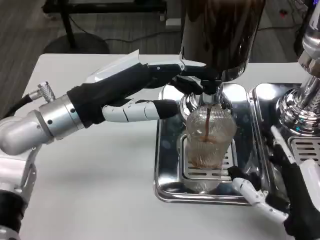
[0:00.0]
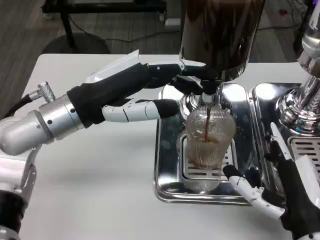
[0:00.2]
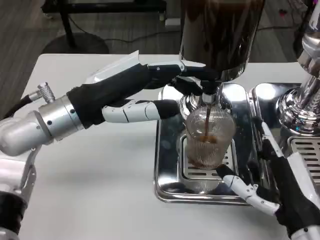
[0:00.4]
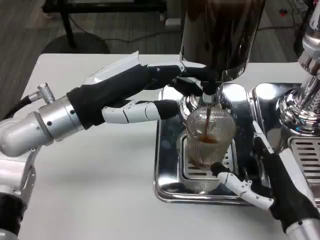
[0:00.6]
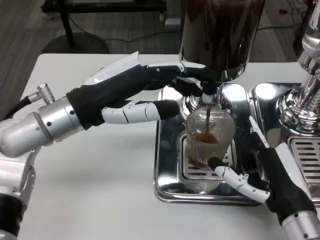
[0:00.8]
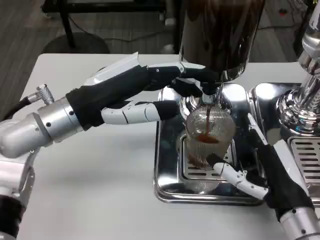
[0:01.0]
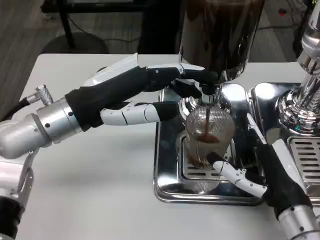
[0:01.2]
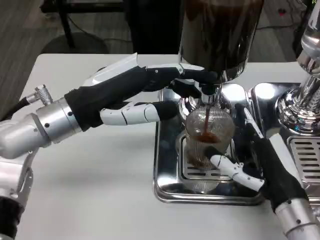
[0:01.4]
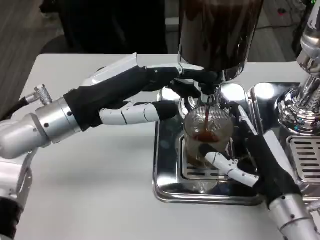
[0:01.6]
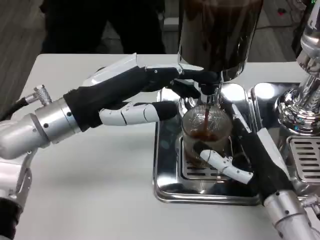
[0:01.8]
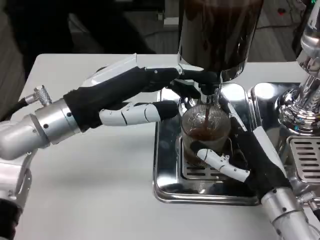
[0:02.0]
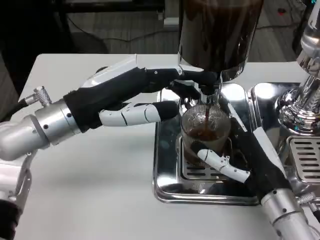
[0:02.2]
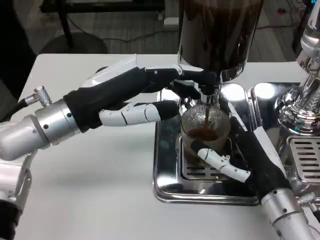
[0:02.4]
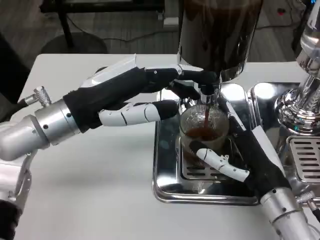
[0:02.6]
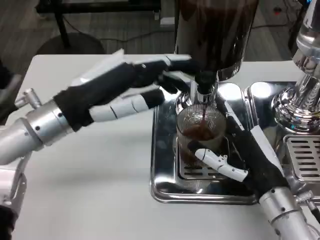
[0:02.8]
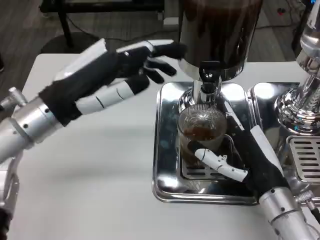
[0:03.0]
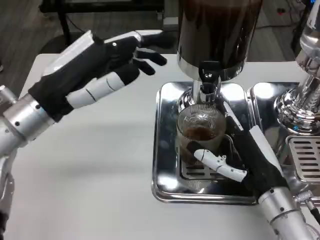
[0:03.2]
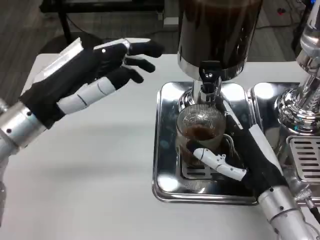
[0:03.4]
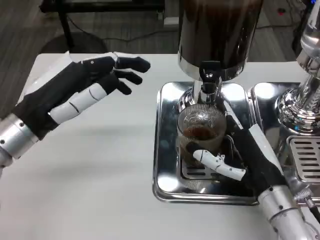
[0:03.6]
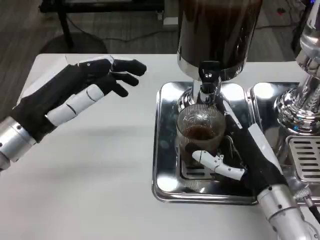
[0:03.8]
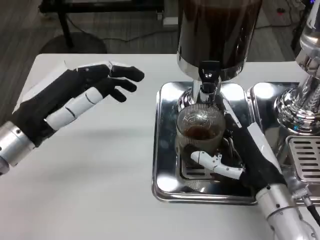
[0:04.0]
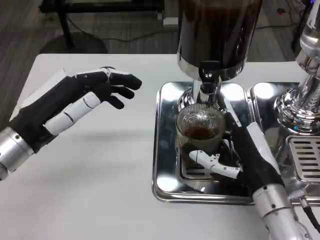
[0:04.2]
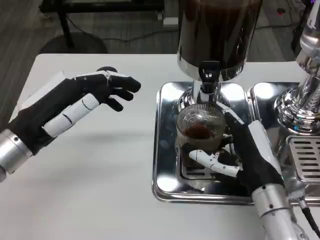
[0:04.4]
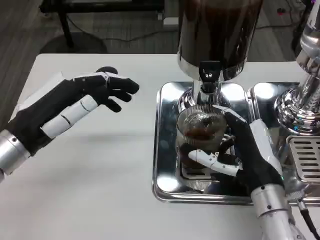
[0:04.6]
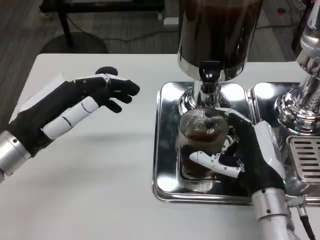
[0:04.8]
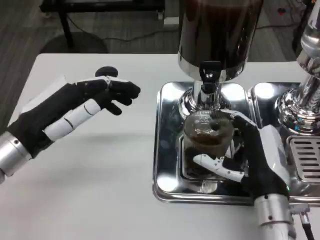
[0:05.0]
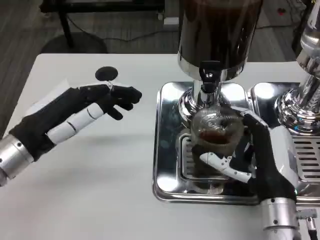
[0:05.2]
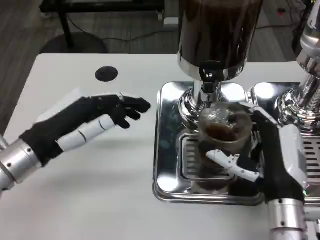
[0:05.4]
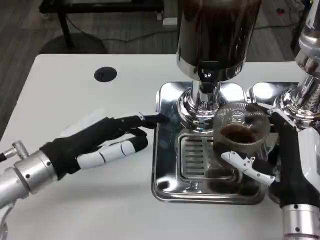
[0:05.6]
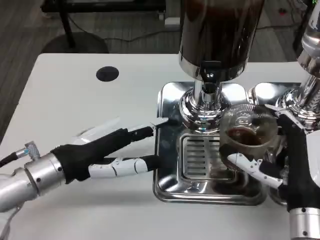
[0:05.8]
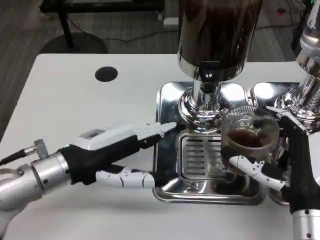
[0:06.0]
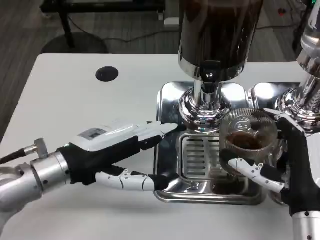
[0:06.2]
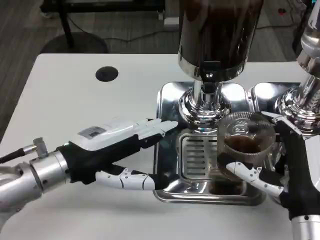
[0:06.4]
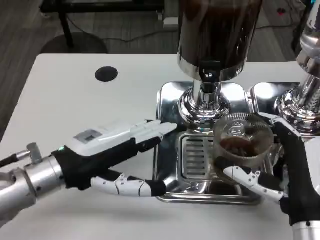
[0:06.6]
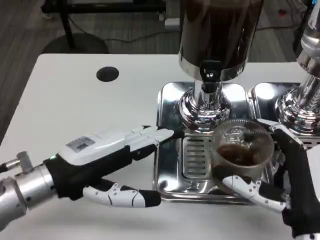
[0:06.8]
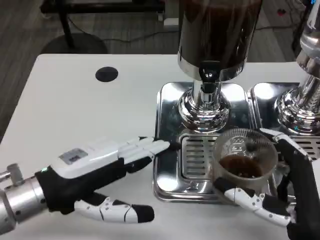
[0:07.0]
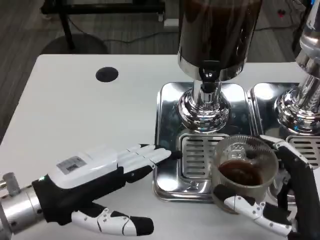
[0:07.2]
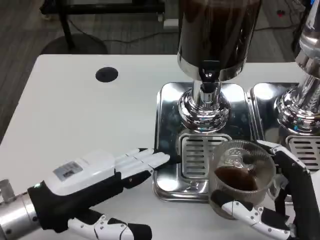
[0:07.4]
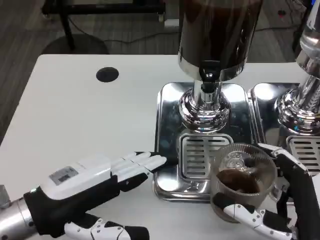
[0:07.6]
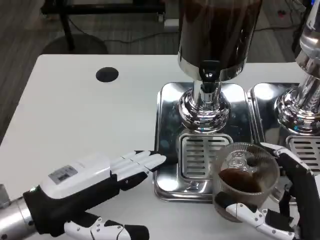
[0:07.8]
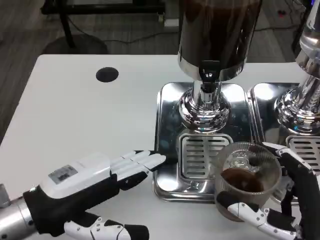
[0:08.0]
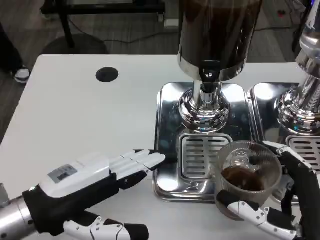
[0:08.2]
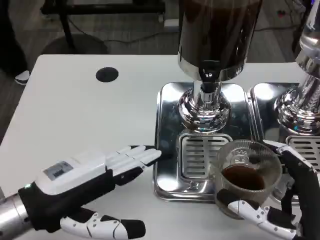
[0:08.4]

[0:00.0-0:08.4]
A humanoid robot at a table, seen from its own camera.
Task of the whole recording: Grasp the cup under the faucet to collect the drink, then remove the cup.
0:00.0 to 0:01.4: The right hand goes about 5 cm forward.
0:02.8 to 0:04.2: The left hand shifts by about 5 cm.
0:05.6 to 0:07.0: The right hand is displaced backward by some 5 cm.

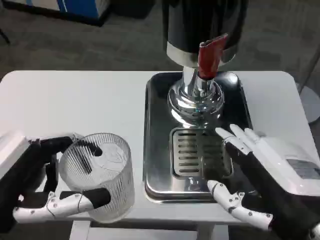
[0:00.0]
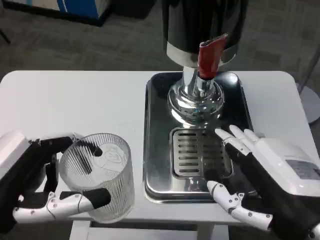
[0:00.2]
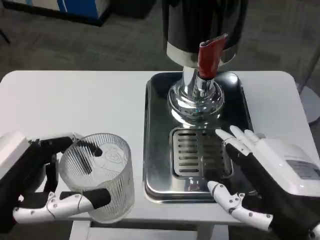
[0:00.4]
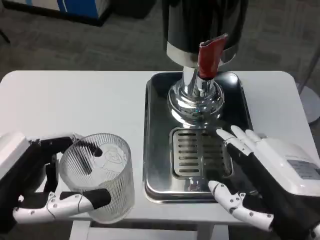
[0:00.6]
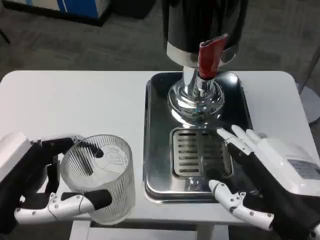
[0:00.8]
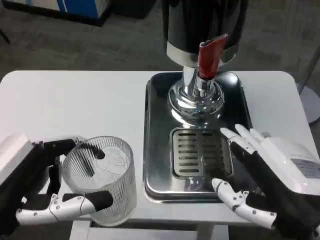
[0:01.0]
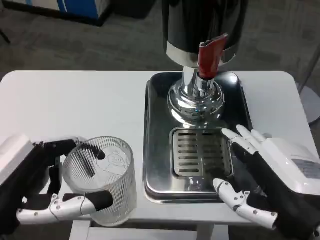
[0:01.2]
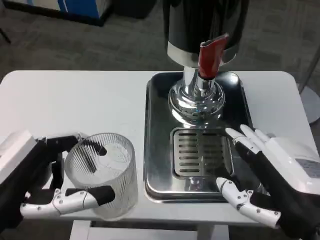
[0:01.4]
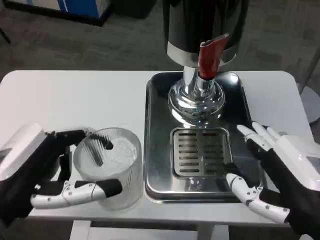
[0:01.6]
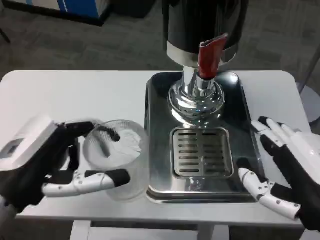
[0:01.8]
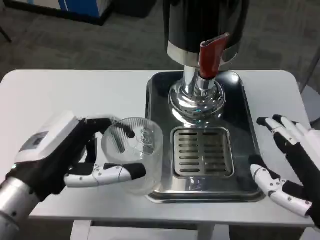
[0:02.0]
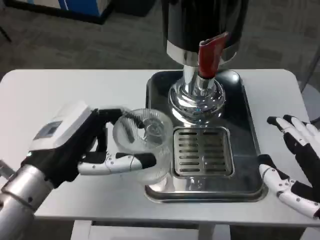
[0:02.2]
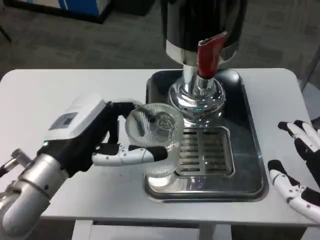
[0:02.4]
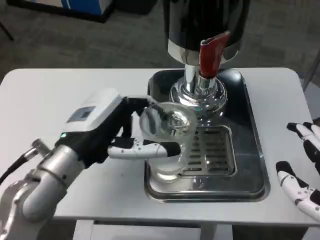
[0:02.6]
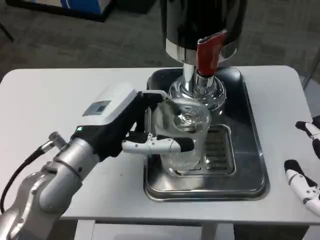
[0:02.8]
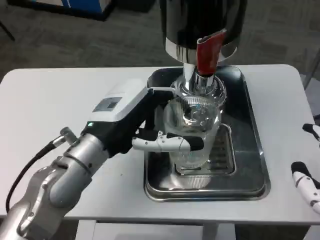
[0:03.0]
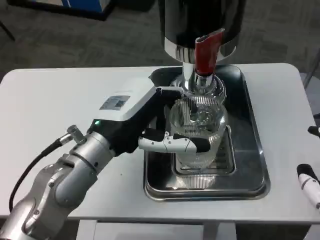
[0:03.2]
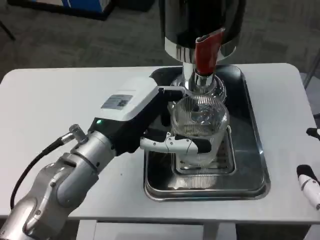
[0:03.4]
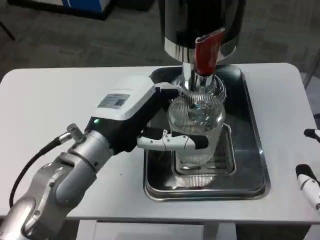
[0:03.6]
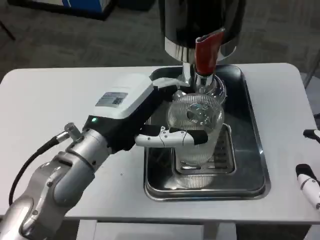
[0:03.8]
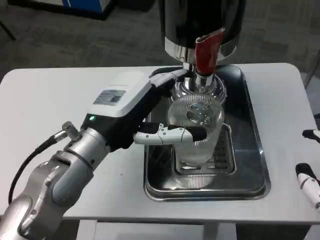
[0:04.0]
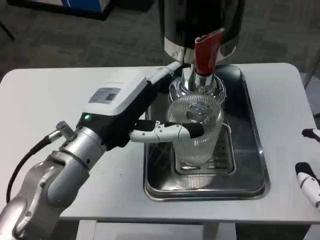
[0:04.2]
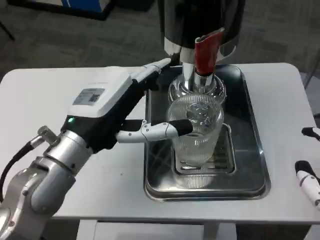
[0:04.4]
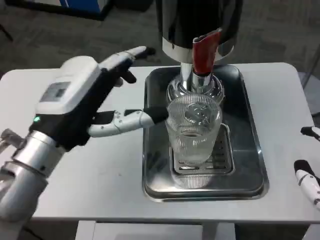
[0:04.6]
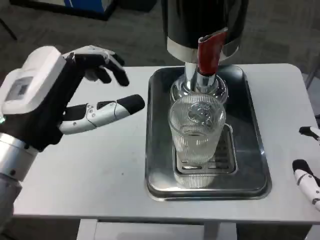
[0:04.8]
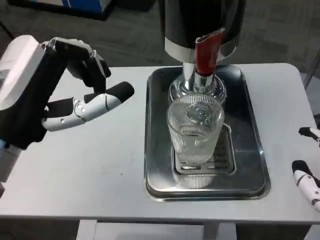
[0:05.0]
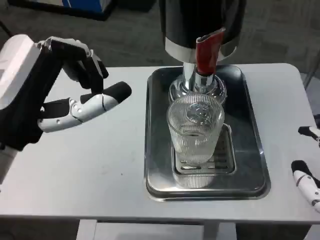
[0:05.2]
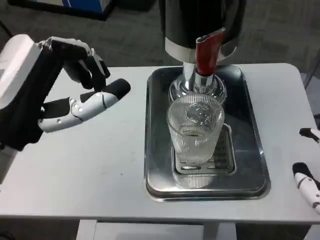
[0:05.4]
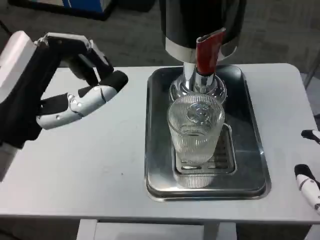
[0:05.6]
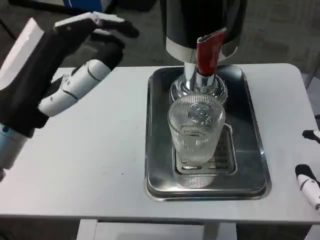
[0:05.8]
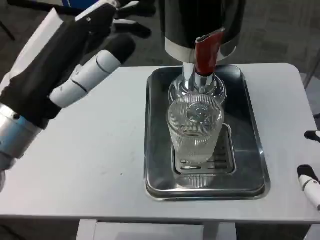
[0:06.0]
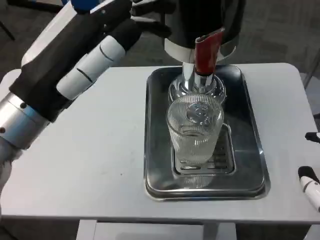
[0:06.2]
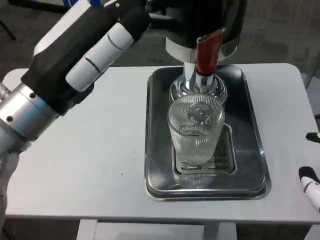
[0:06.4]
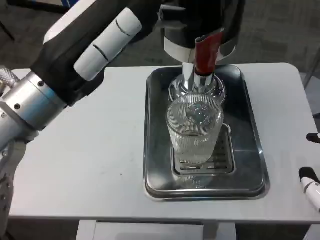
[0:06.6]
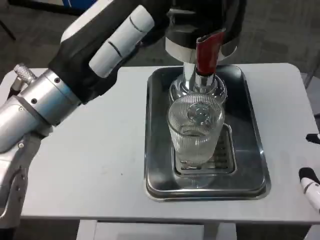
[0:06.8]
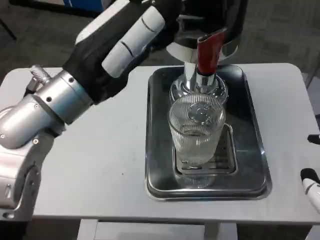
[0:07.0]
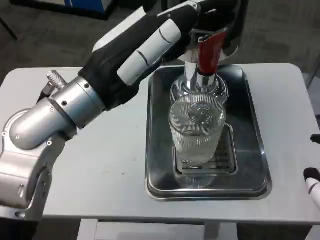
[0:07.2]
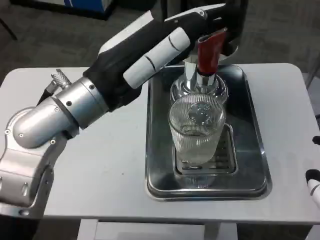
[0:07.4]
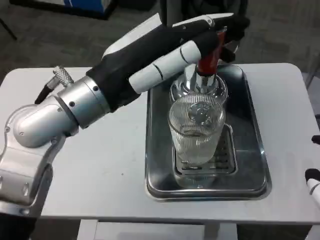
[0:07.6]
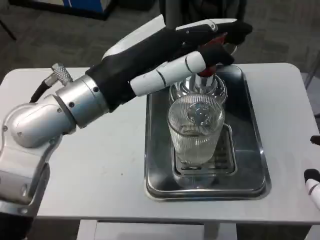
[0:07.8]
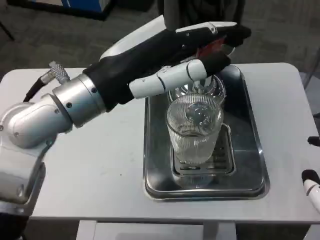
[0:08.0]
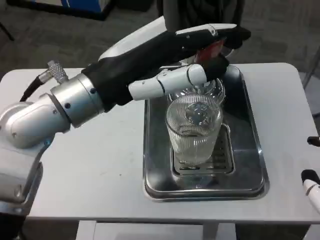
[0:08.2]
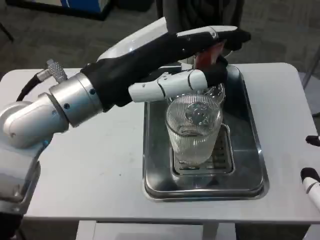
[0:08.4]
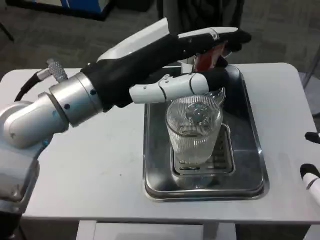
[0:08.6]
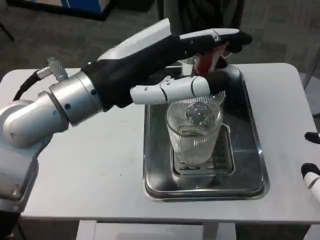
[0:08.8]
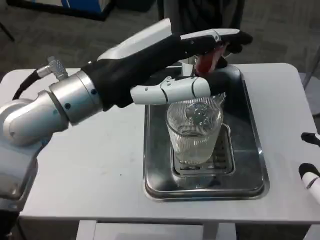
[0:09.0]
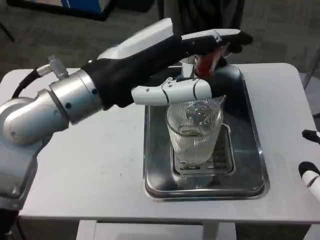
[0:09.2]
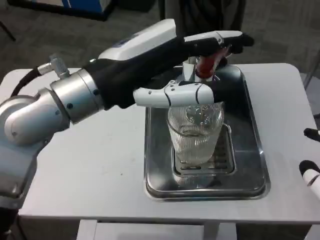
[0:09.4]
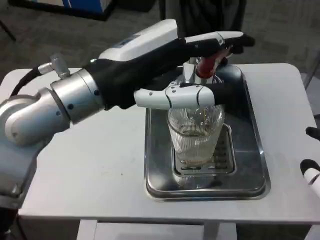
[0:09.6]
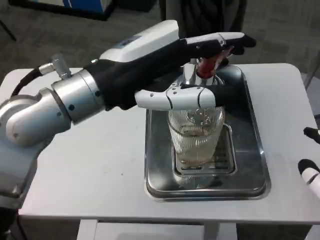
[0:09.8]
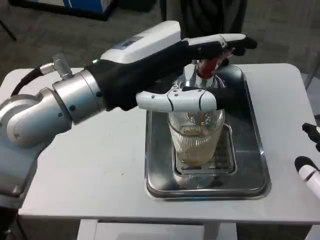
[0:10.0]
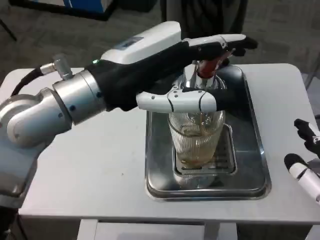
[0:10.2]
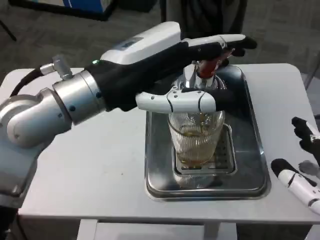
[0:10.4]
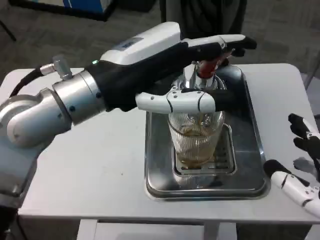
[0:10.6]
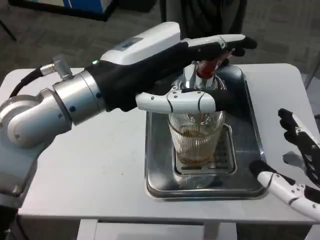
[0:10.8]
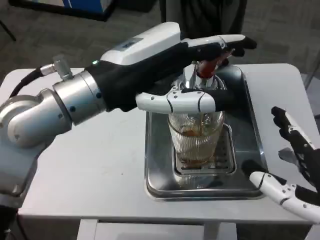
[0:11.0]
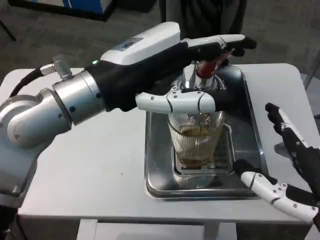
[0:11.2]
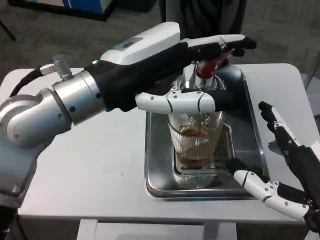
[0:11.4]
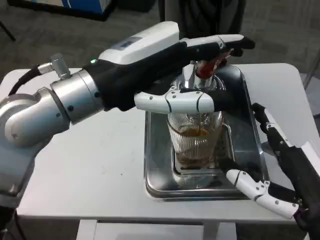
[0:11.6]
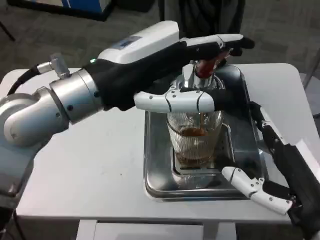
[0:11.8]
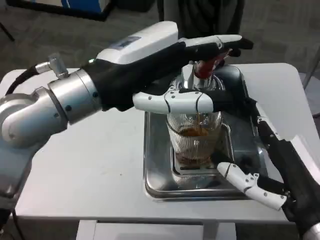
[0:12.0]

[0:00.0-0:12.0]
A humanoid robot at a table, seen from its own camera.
Task of the whole recording: Grasp the cup under the faucet to collect the drink, then remove the cup.
0:01.6 to 0:03.0: The left hand goes roughly 15 cm forward and to the right.
0:04.4 to 0:06.0: The left hand shifts approximately 5 cm upward.
0:06.0 to 0:07.6: The left hand moves to the right, some 5 cm.
0:10.4 to 0:12.0: The right hand shifts some 5 cm to the left.

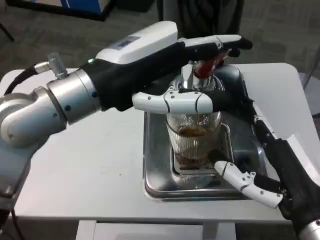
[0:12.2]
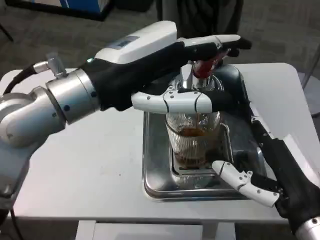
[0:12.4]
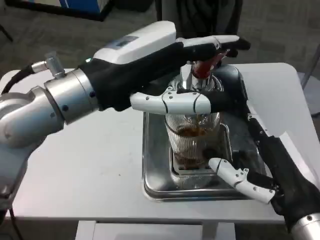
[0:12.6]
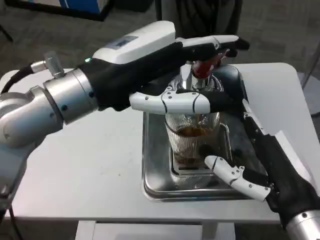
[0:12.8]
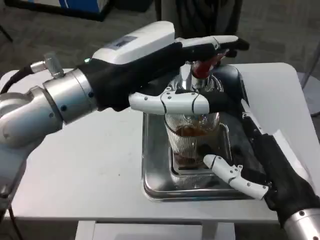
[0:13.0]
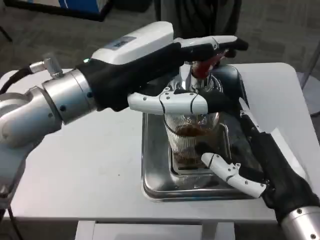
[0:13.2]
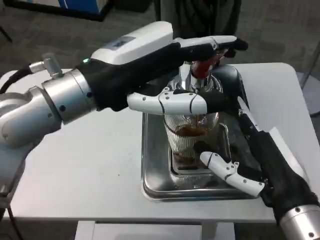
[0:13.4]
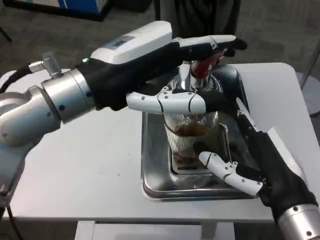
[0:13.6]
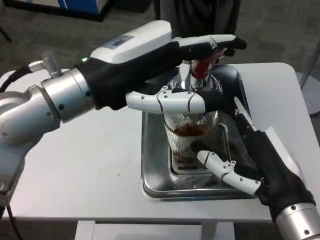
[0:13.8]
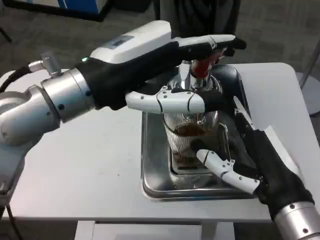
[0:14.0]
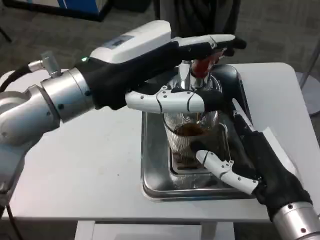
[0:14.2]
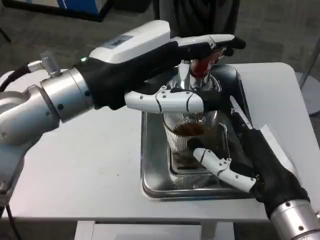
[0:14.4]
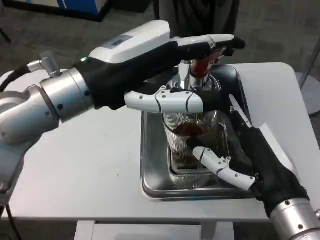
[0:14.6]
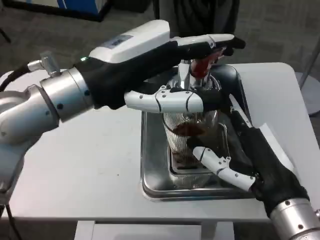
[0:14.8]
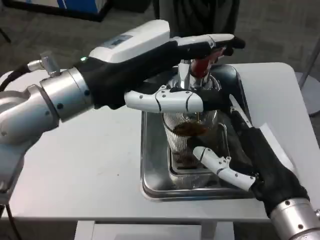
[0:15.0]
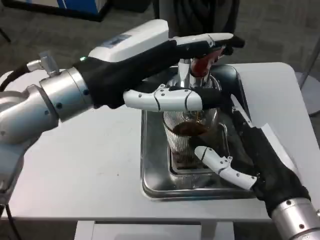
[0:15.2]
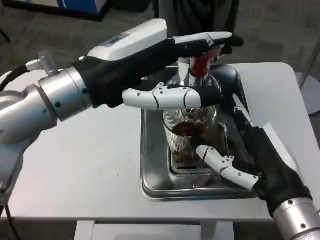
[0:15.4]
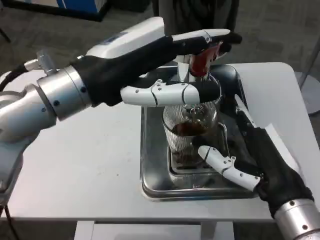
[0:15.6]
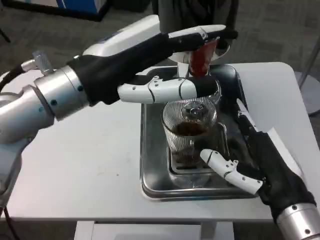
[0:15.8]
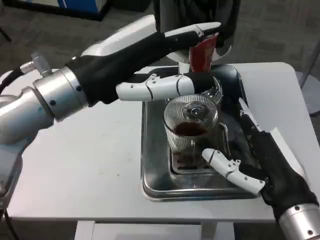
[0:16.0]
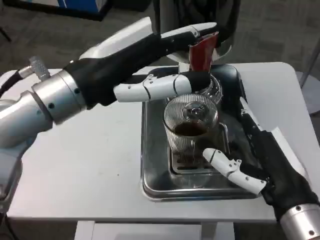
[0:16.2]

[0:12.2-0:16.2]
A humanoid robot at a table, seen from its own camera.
Task of the whole recording: Grasp the cup under the faucet to collect the drink, then remove the cup.
0:13.6 to 0:14.8: Both hands stay about where they are.
